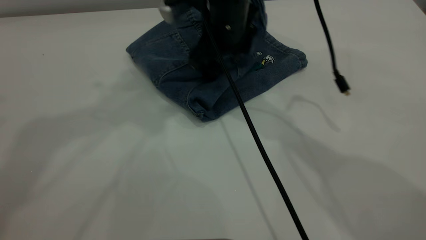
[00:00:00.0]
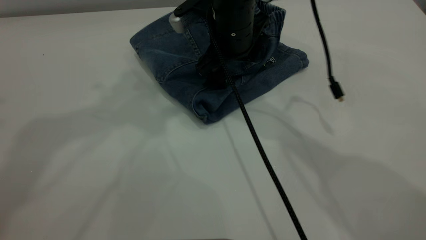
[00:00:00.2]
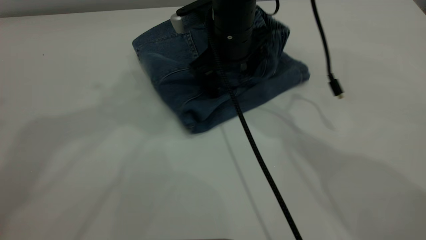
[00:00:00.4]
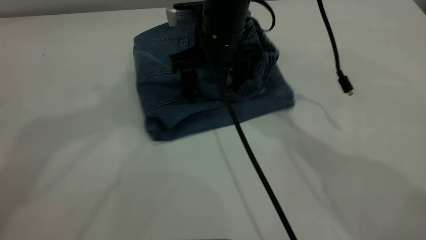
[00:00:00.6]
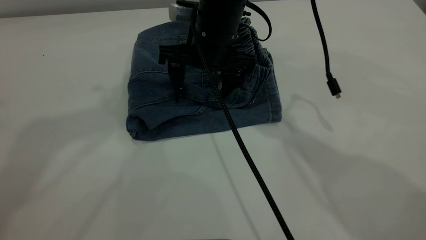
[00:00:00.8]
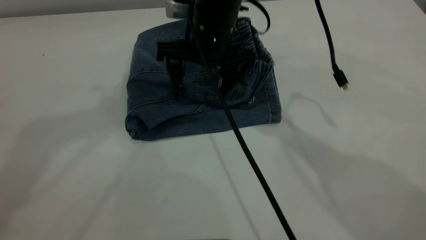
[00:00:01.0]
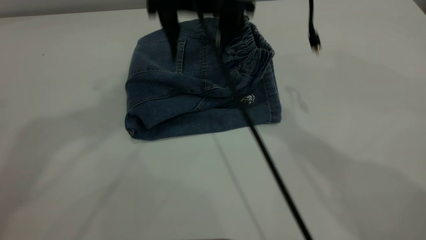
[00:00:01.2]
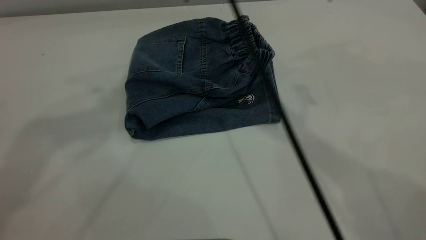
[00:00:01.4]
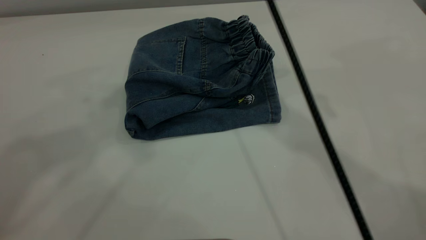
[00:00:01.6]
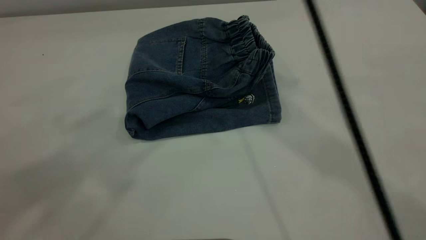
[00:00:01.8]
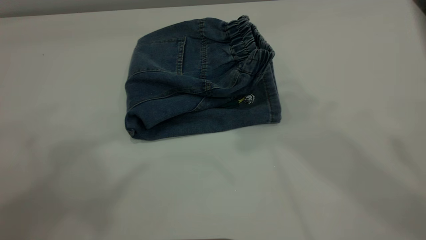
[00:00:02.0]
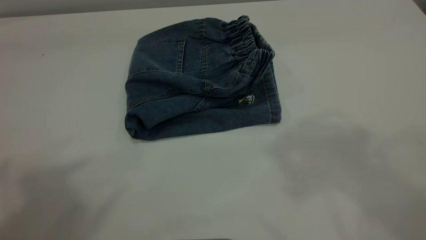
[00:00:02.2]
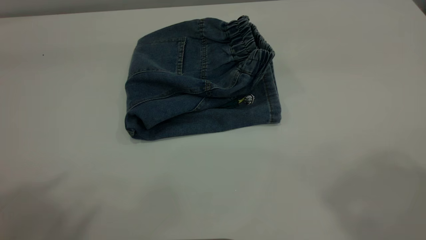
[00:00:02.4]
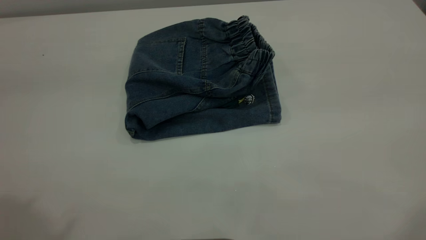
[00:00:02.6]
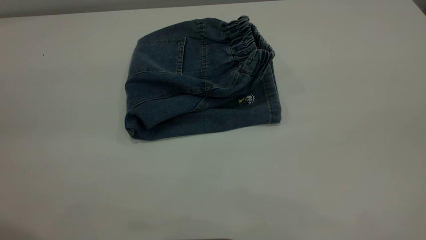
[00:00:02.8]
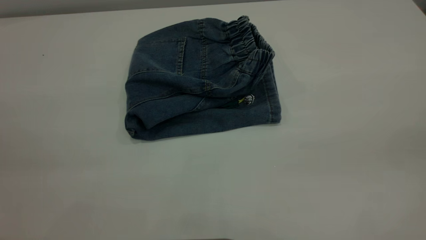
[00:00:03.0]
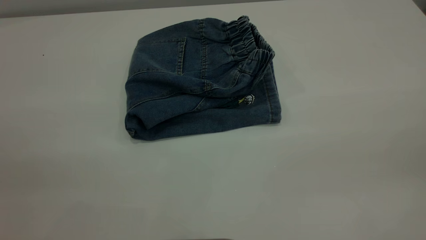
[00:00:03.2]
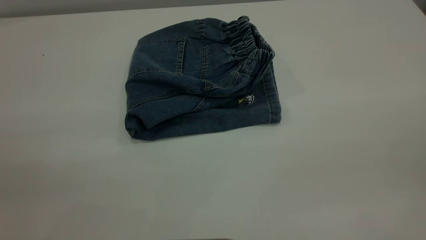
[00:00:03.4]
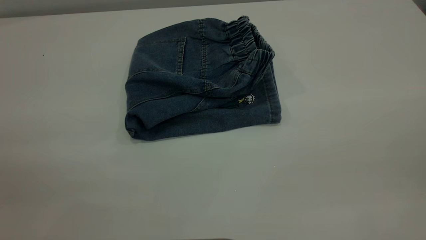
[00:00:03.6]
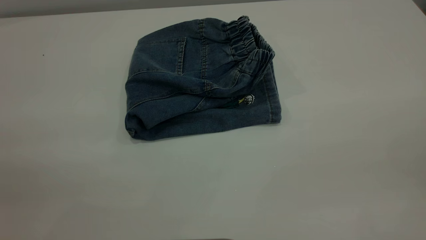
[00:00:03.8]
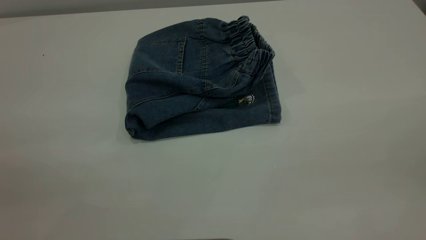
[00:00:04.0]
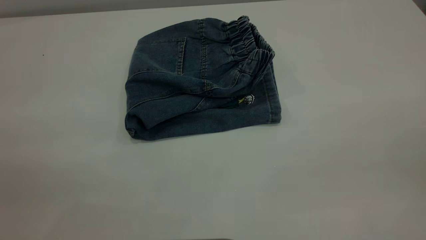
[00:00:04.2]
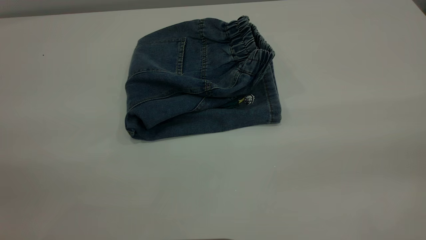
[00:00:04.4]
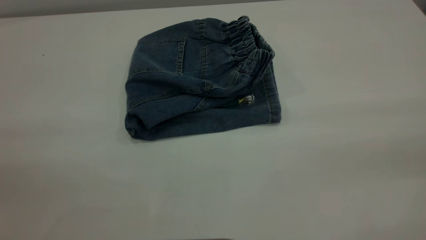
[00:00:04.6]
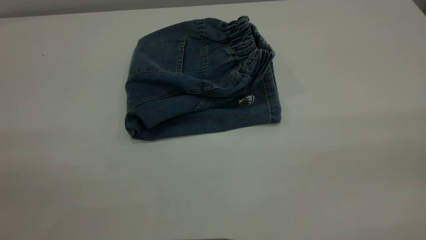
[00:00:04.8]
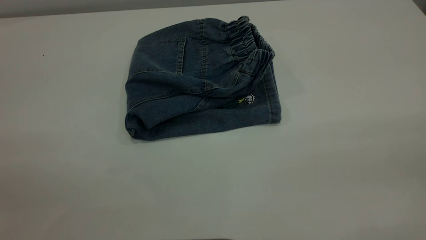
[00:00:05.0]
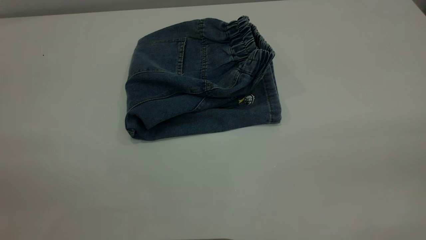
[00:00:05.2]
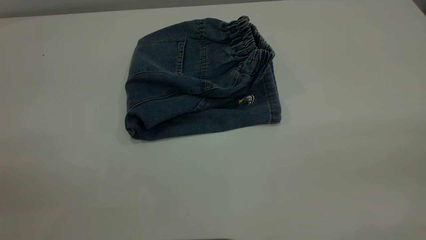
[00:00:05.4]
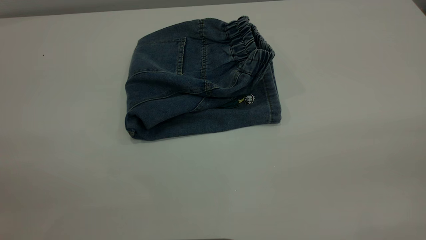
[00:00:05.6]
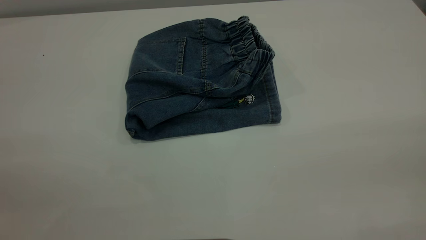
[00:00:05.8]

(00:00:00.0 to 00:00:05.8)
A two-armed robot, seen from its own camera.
00:00:00.0 - 00:00:01.4: The right gripper is displaced upward by some 20 cm.
00:00:01.4 - 00:00:02.8: The right gripper shifts some 40 cm backward and to the right.
